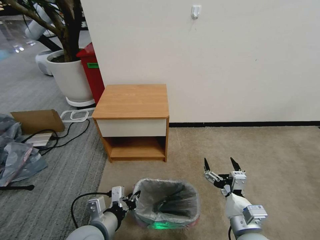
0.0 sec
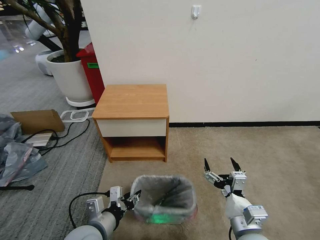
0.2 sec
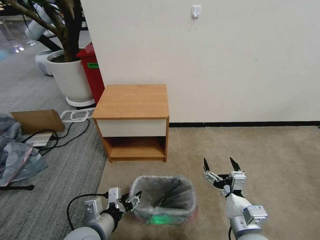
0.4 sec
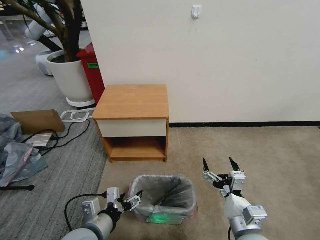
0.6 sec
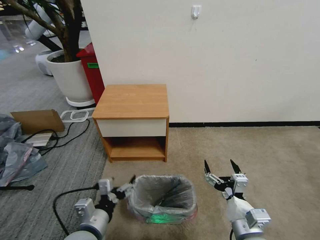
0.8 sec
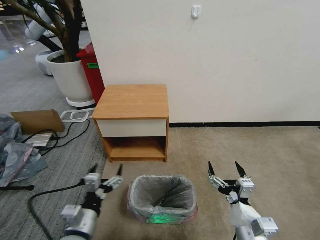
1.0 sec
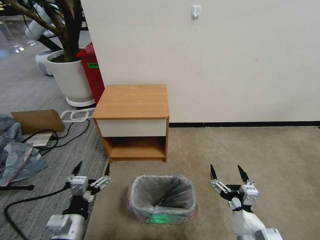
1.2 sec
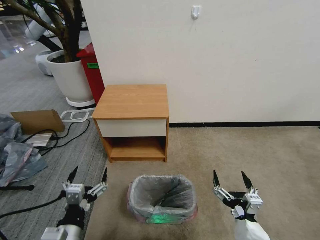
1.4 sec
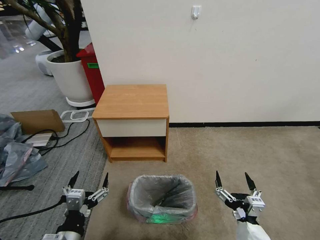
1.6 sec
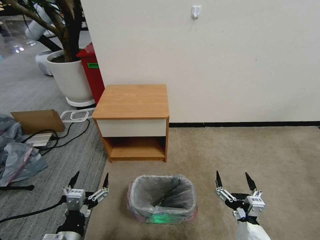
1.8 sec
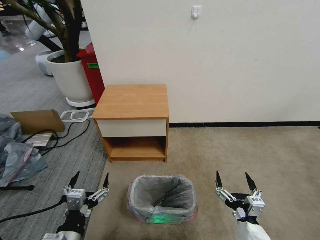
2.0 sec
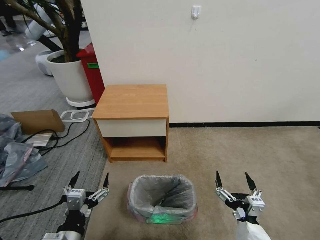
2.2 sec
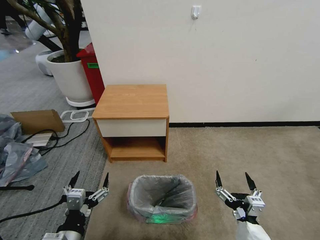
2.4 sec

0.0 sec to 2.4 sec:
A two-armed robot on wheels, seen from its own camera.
Task of the whole recording: Pick up the garbage bag from the table and place it over the trash can.
0.0 sec to 1.2 sec: The left gripper is displaced to the left by approximately 5 cm, and opens up.
1.2 sec to 2.4 sec: The grippers stay close to where they were, moving slightly.

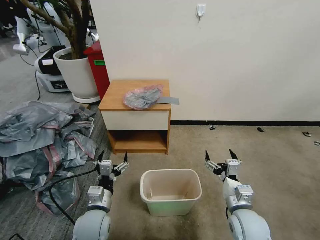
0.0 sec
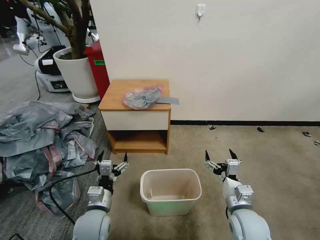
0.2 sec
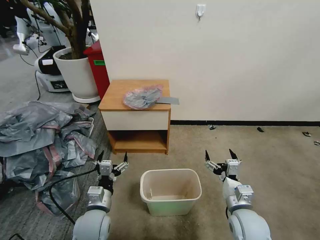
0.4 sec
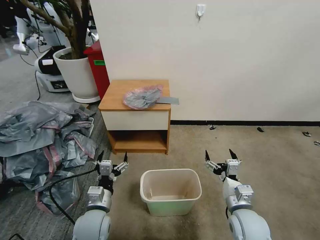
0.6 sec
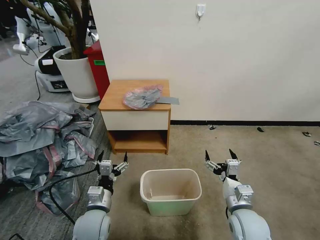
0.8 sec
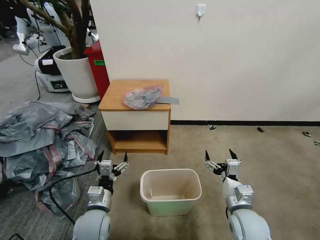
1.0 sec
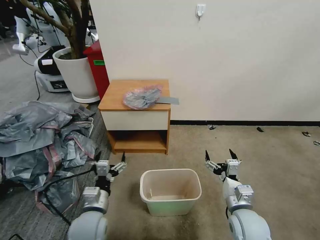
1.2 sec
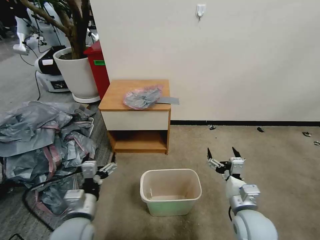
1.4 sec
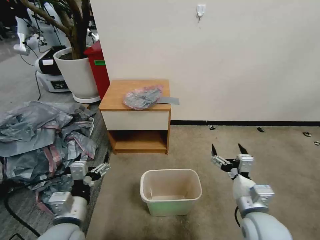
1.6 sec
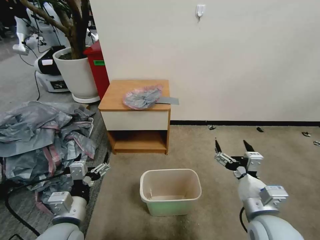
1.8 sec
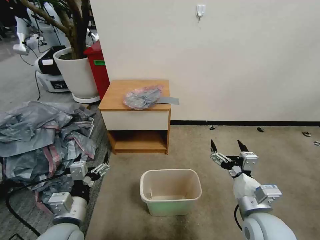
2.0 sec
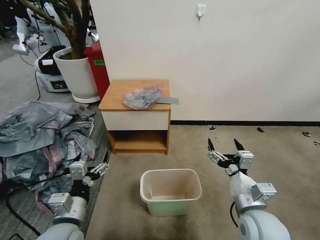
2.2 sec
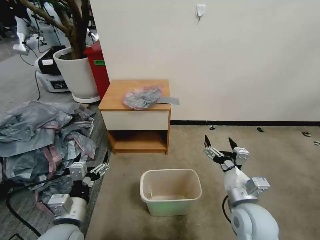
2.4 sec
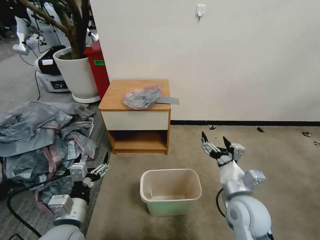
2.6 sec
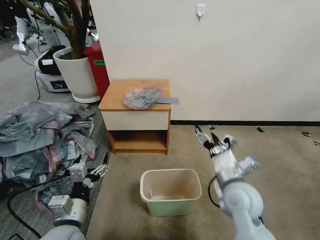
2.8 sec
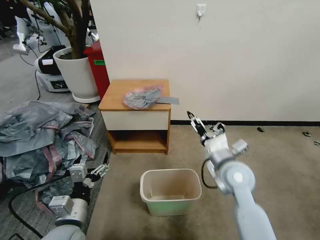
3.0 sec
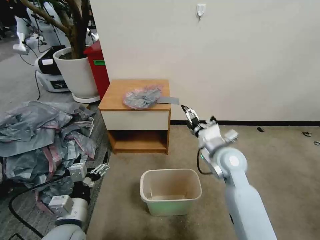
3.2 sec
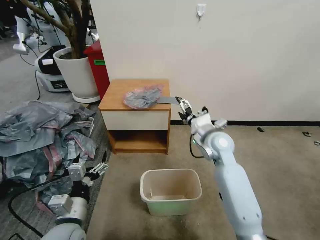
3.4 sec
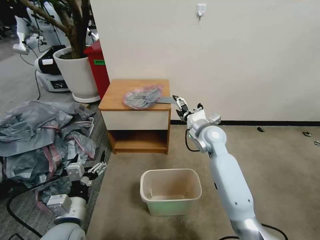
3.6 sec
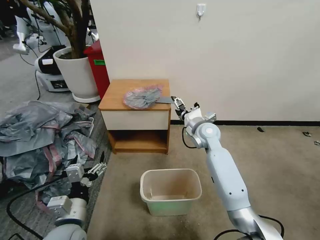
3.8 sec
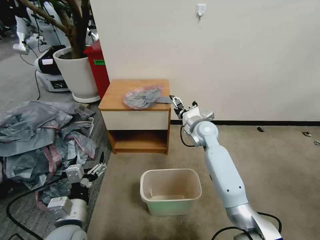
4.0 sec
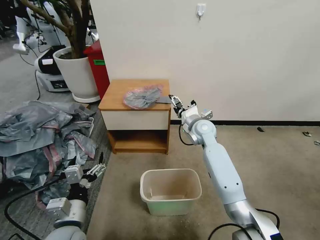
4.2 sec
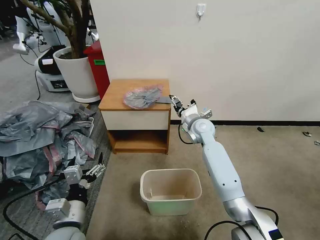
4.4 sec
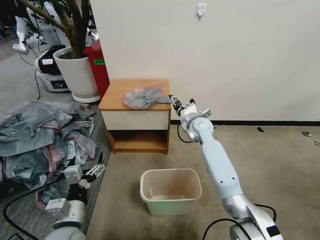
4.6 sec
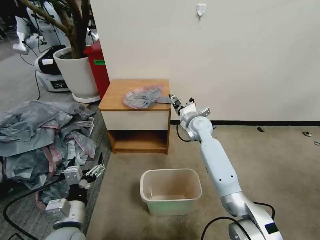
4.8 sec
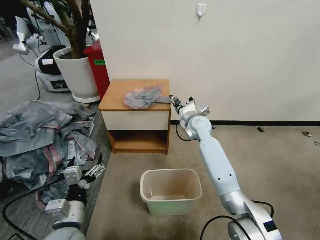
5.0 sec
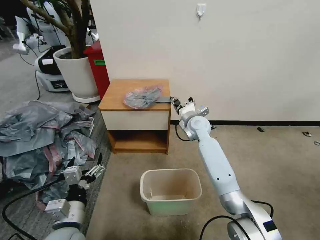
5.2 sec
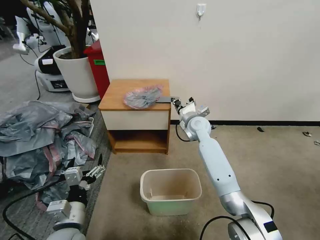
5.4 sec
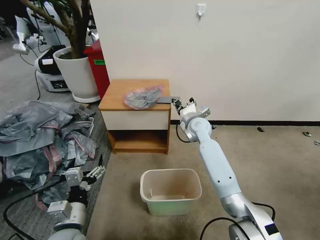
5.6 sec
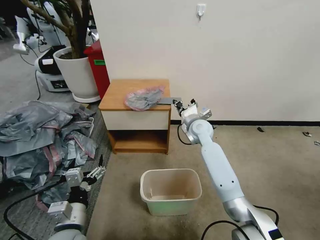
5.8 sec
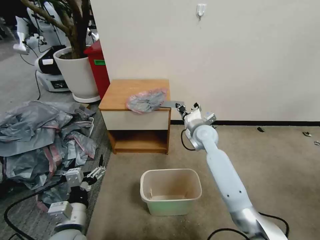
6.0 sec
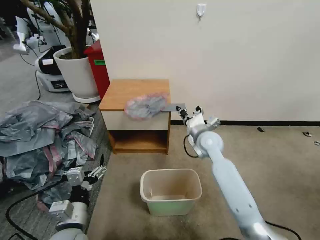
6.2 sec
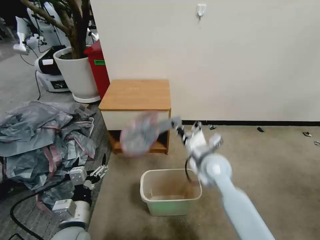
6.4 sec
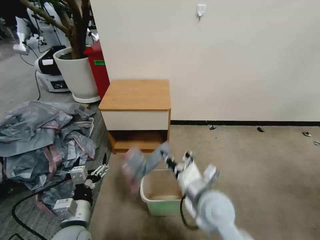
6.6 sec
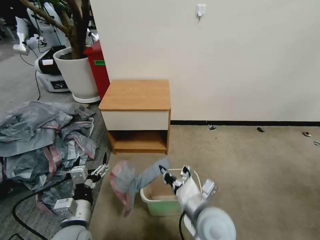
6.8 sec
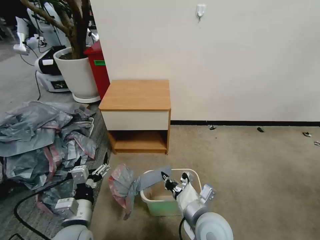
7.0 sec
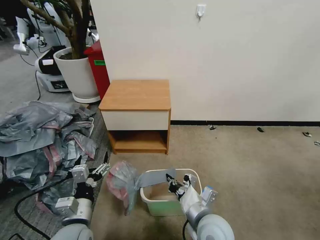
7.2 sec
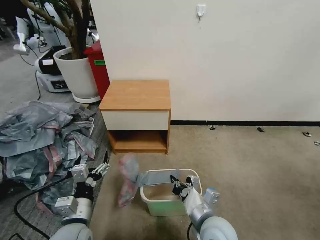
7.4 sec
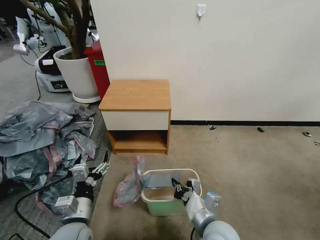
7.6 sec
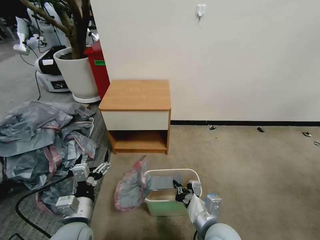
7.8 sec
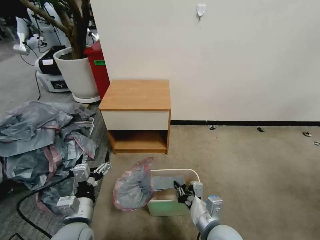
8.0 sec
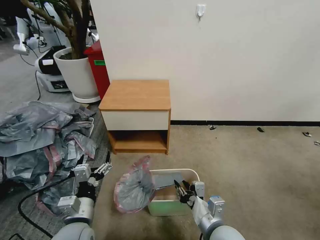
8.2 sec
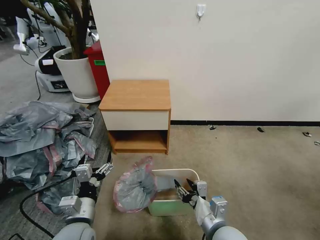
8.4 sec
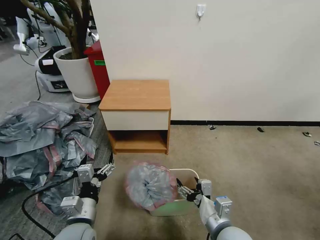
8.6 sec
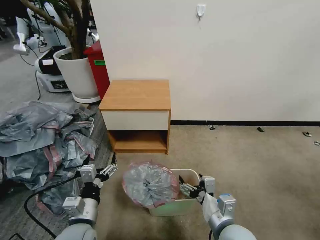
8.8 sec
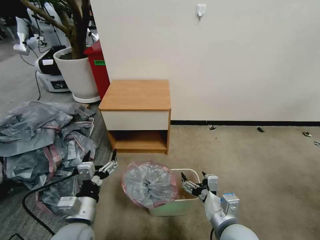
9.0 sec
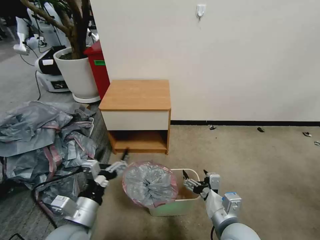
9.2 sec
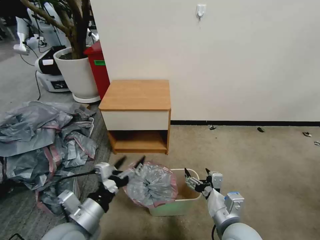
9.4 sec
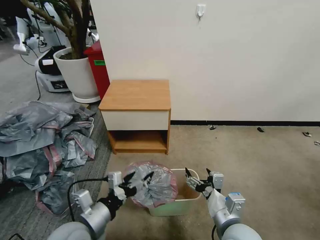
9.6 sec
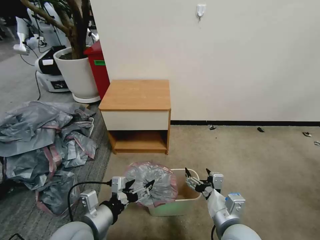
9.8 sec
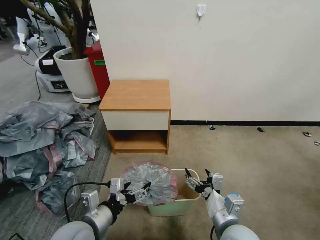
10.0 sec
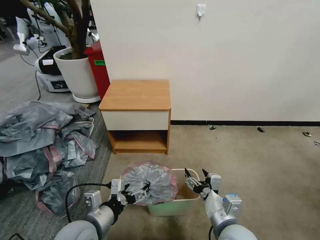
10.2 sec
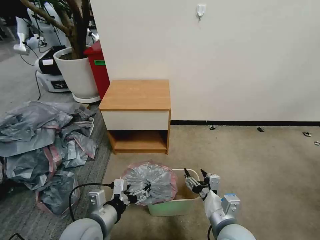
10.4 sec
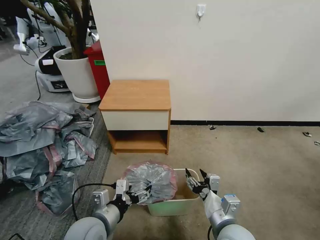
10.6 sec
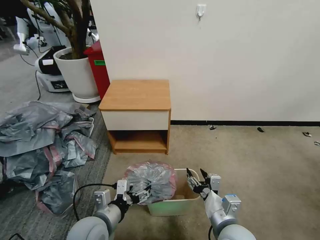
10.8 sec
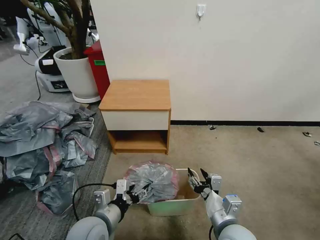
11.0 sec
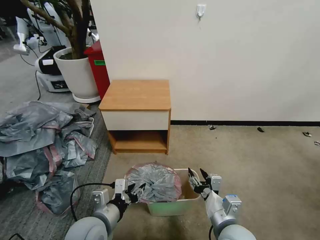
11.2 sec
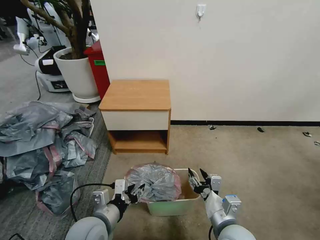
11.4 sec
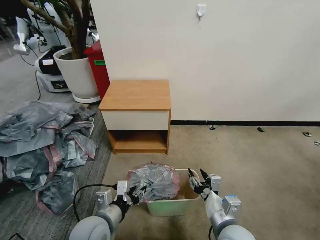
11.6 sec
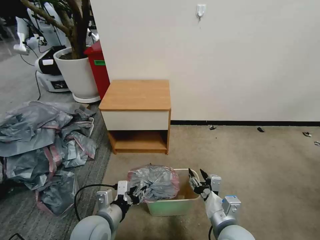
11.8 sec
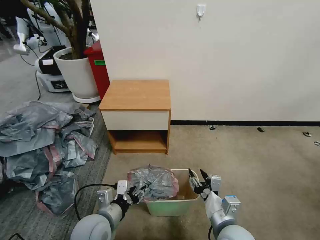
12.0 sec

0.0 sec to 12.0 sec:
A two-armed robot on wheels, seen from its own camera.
Task of the whole recording: Pick up the garbage bag from the table and place it over the trash can.
1.6 sec to 3.0 sec: The right gripper is displaced forward by about 15 cm.
3.0 sec to 4.4 sec: The right gripper shifts approximately 20 cm forward.
4.4 sec to 6.0 sec: The right gripper closes.
6.0 sec to 7.6 sec: The right gripper heads backward, covering roughly 30 cm.
7.6 sec to 9.0 sec: The right gripper opens its fingers.
10.4 sec to 12.0 sec: The left gripper closes its fingers.

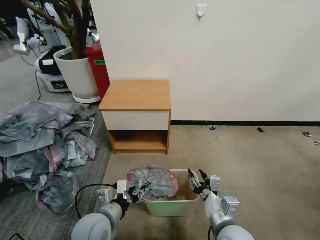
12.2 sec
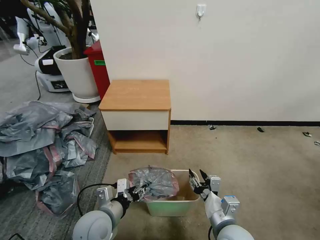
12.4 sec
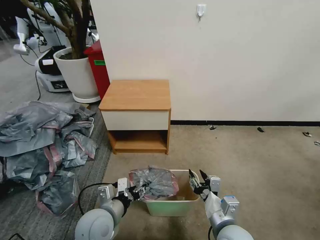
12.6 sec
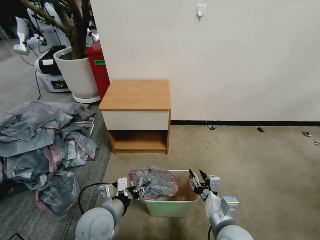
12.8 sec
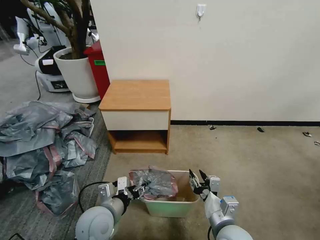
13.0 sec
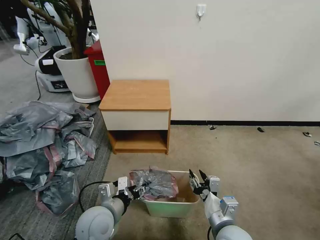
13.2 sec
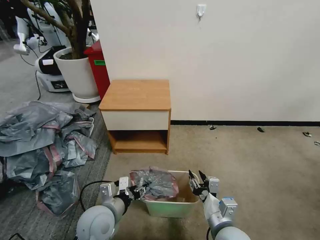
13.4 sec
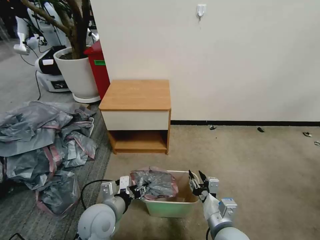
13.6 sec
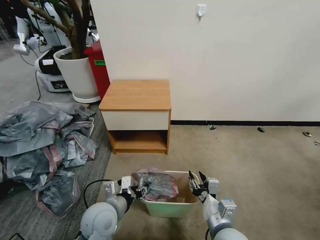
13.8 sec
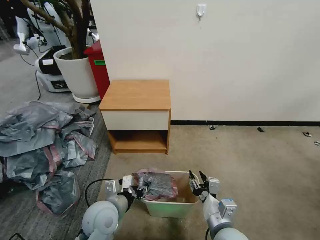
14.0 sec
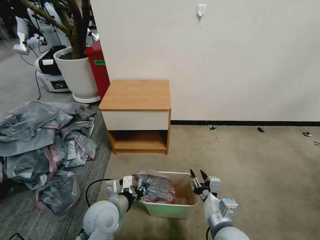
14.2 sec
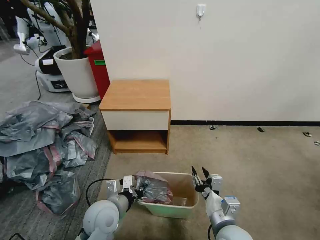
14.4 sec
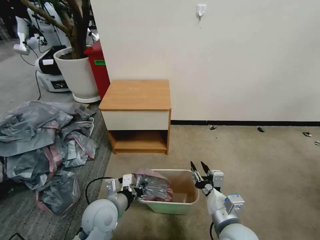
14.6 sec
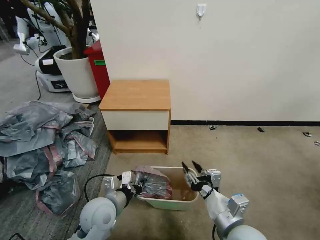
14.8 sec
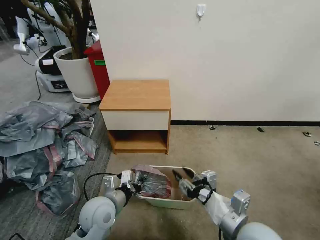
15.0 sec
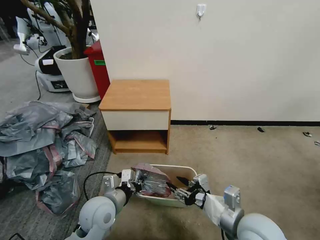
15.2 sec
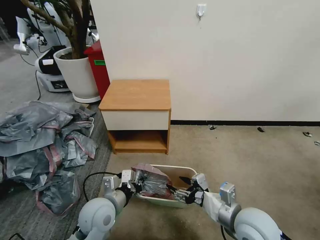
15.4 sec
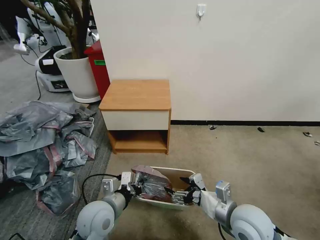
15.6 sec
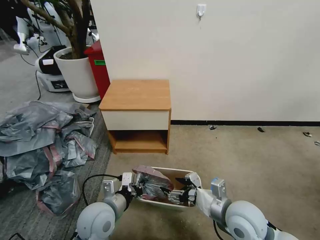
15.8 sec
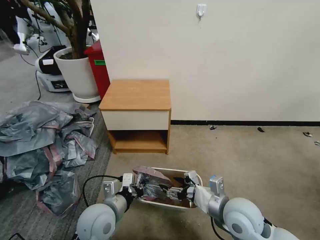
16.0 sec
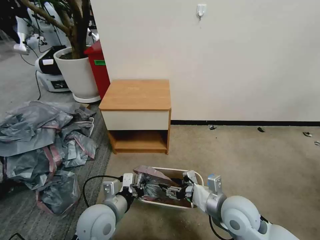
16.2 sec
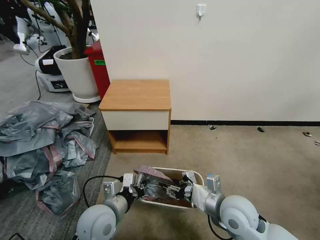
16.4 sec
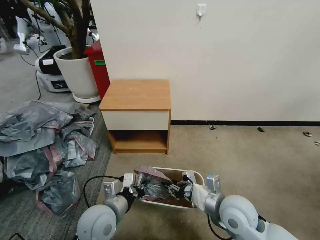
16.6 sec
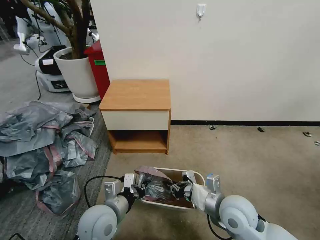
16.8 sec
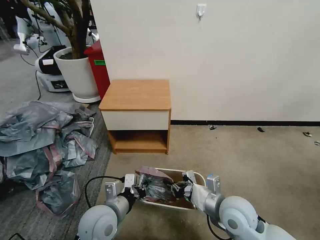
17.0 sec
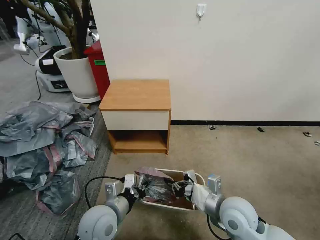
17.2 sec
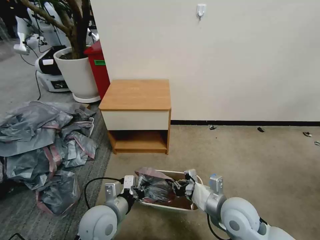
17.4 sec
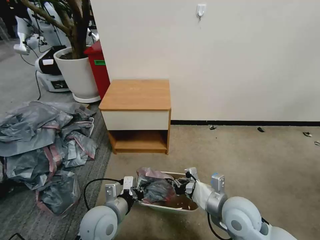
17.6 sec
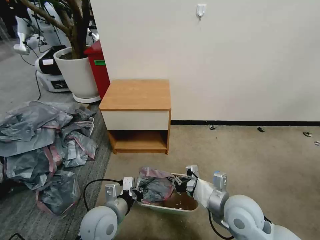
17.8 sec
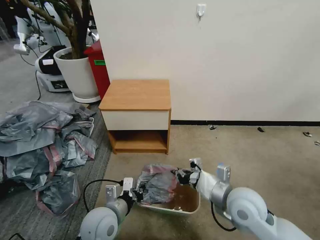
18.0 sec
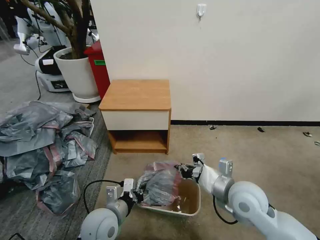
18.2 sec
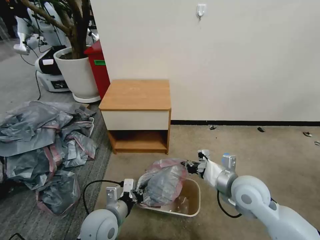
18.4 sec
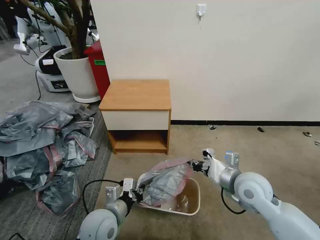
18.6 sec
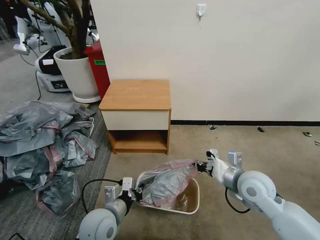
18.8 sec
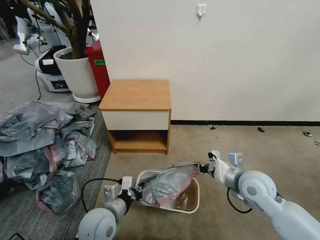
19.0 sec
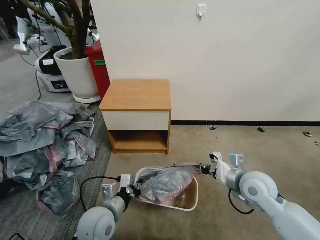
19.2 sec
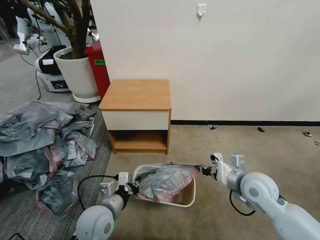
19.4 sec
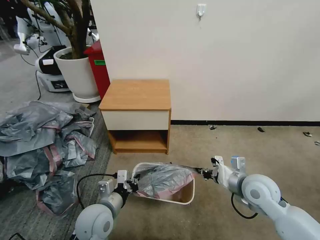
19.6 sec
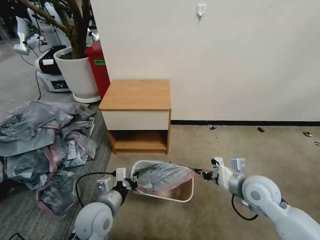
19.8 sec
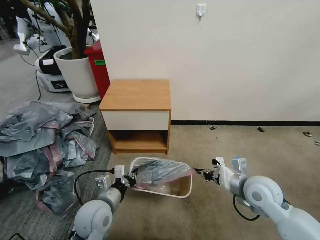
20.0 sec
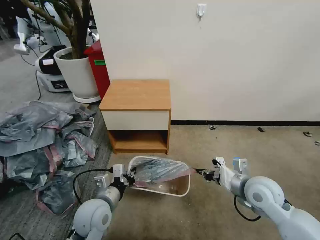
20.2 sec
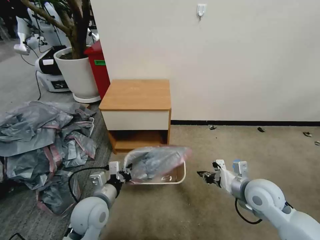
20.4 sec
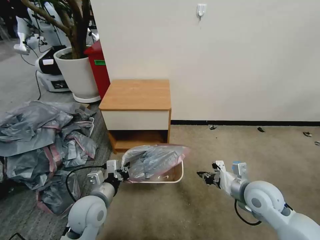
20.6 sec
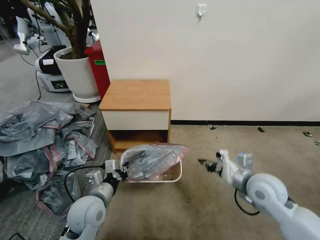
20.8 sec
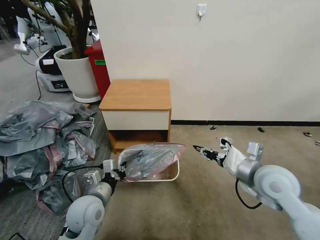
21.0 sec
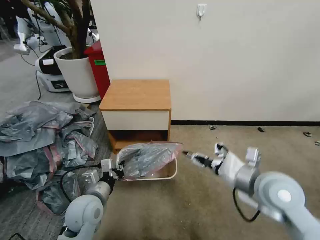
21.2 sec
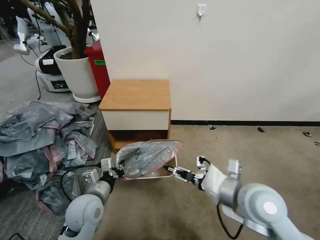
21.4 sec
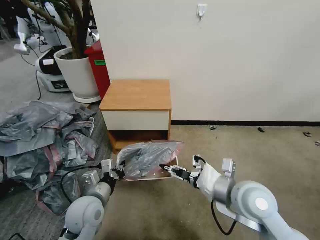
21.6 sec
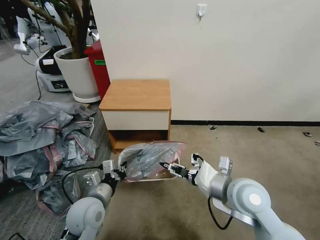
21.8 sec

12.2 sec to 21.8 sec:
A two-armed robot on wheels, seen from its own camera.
Task of the whole recording: Pick up the garbage bag from the table and place it over the trash can.
12.2 sec to 13.8 sec: The grippers move only a little.
13.8 sec to 15.4 sec: The left gripper closes. Meanwhile the right gripper travels upward by roughly 5 cm.
15.4 sec to 17.0 sec: The right gripper closes.
17.0 sec to 18.6 sec: The right gripper travels forward and to the right by roughly 10 cm.
18.6 sec to 20.2 sec: The grippers make only small movements.
20.2 sec to 21.8 sec: The right gripper is displaced to the left and upward by roughly 10 cm, and opens its fingers.
